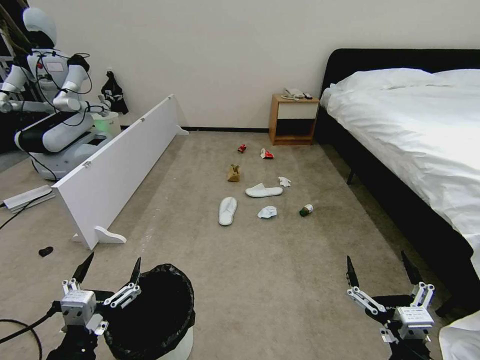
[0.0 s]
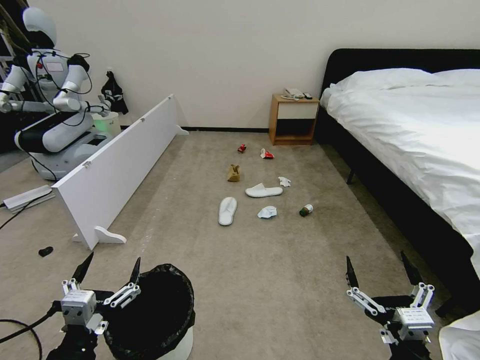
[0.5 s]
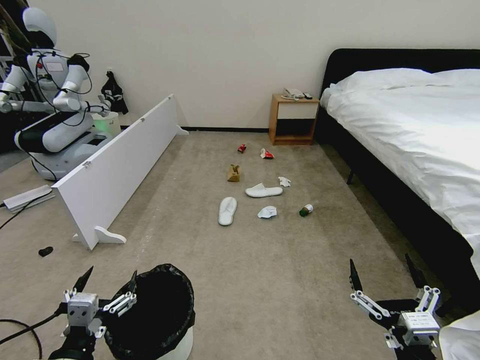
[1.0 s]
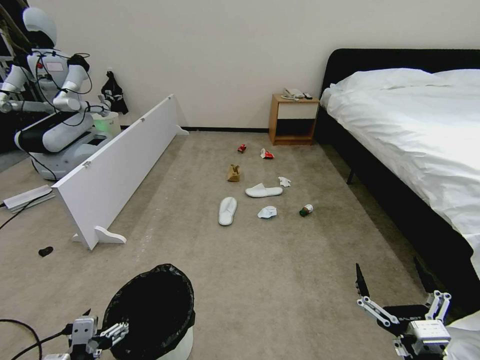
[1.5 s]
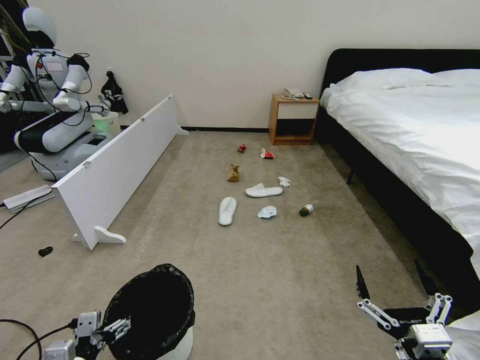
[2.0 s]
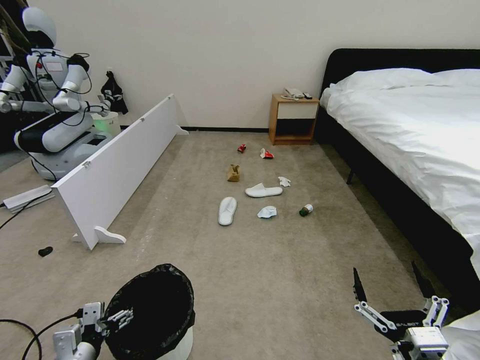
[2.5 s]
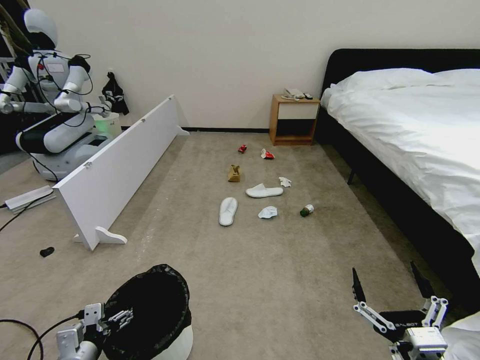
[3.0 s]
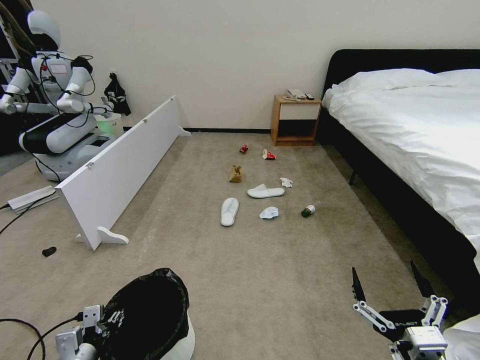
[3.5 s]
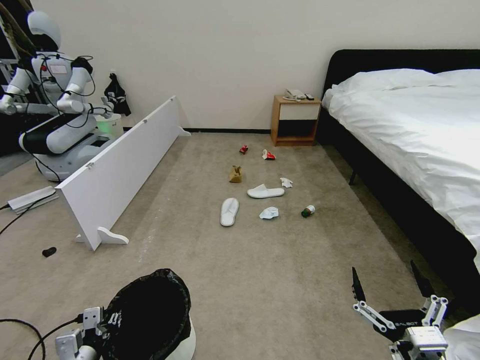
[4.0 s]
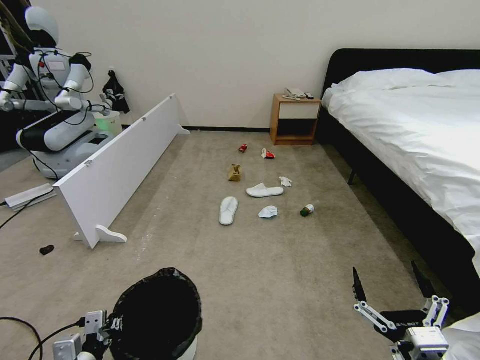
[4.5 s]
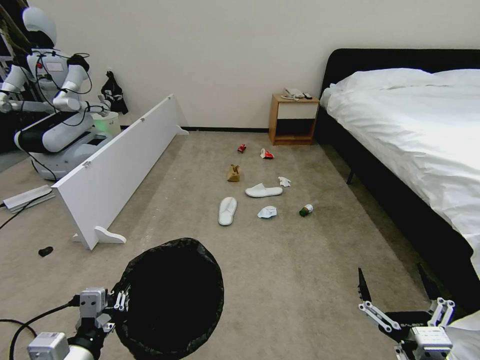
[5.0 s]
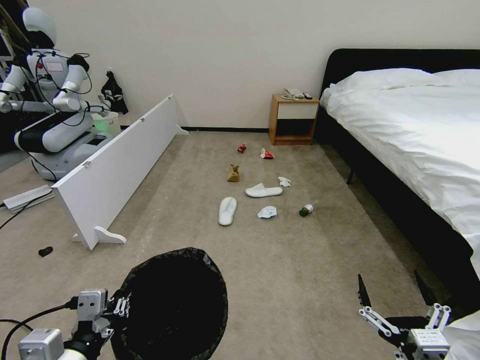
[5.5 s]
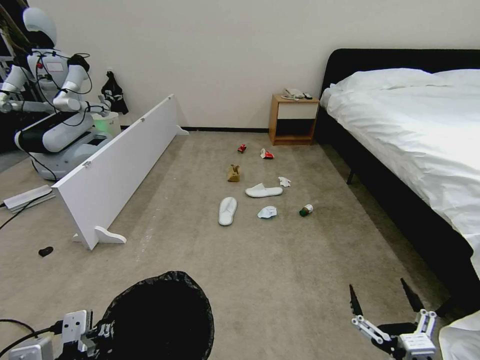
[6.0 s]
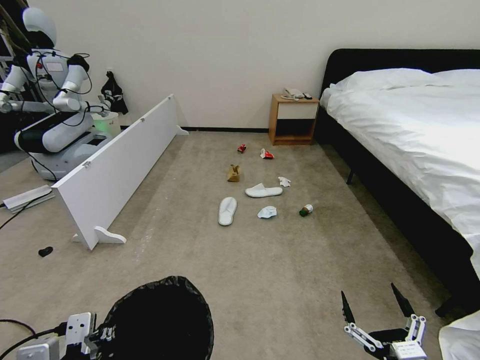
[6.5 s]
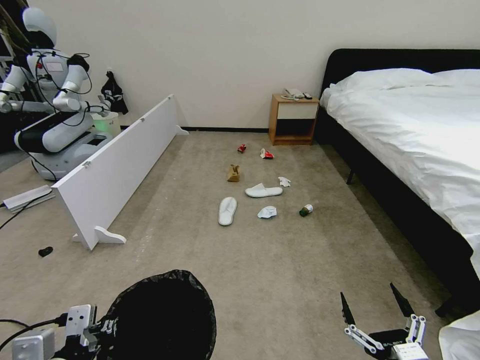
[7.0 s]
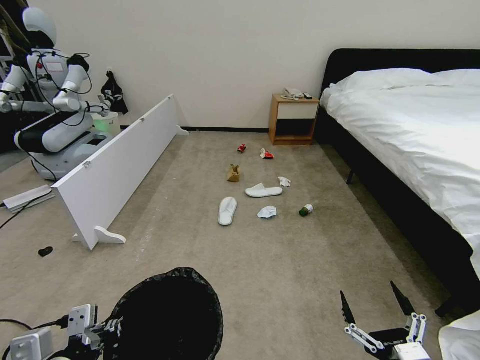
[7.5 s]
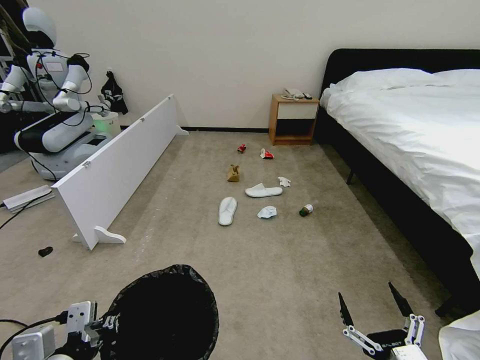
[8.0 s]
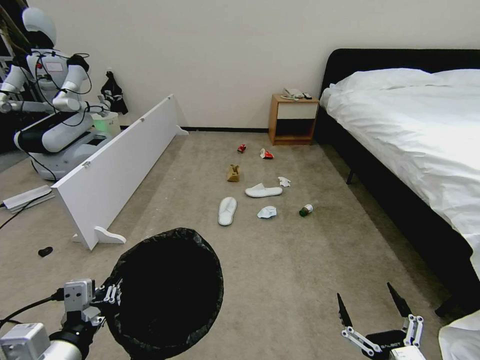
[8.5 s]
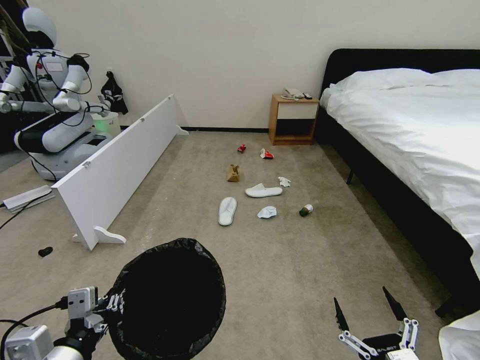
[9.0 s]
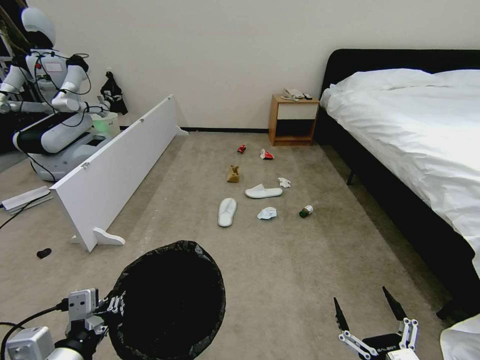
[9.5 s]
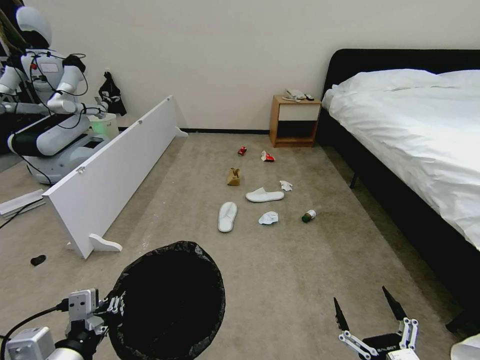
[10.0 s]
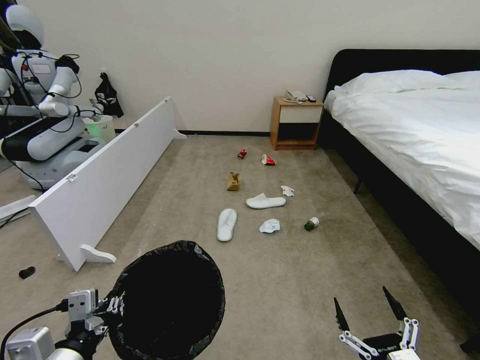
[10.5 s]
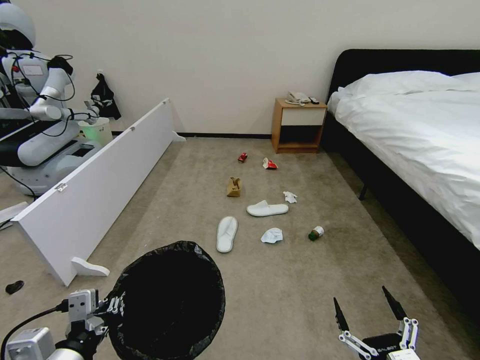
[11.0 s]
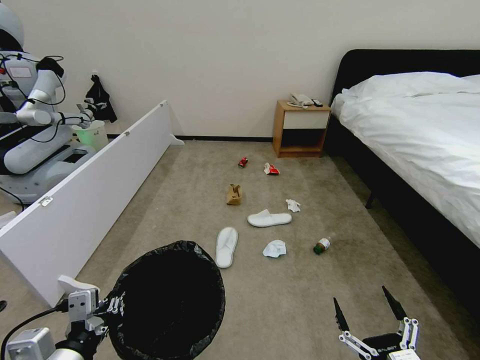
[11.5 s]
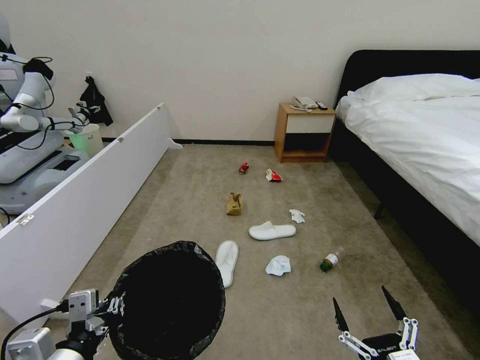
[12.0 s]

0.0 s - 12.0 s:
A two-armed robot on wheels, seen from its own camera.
Task of the whole recording: Pick up the trash bin, then pick up the garbage from the floor and place it into the trash bin.
2.0 s - 4.0 s: The left gripper ends up about 5 cm from where it was, and closes.
4.0 s - 6.0 s: The left gripper heads upward and backward, covering about 20 cm.
6.0 s - 8.0 s: The grippers make only small movements.
8.0 s - 10.0 s: There are only small adjustments of the grippers.

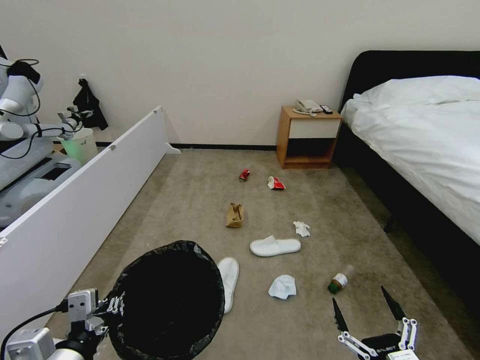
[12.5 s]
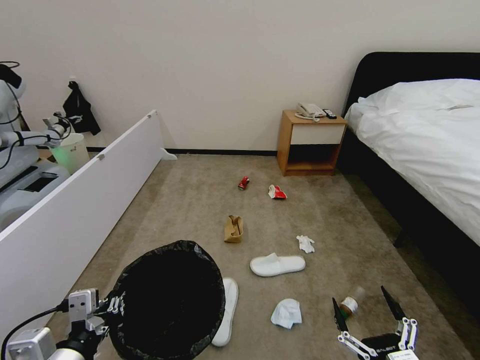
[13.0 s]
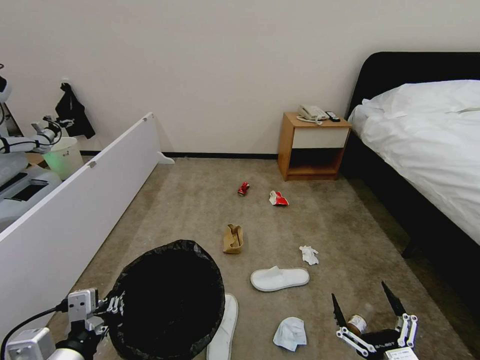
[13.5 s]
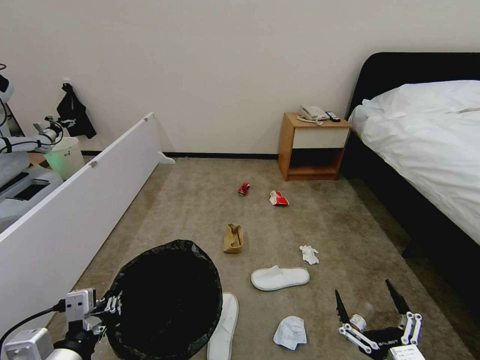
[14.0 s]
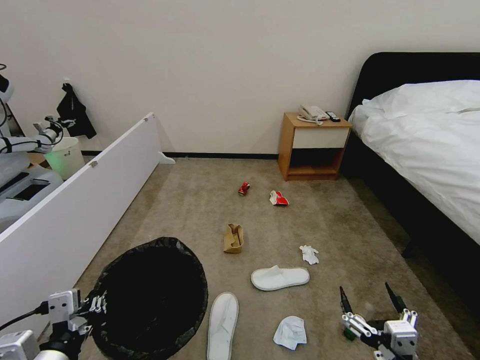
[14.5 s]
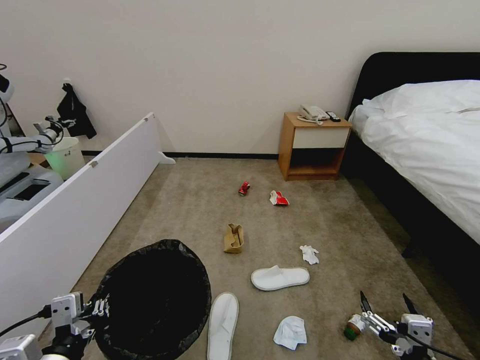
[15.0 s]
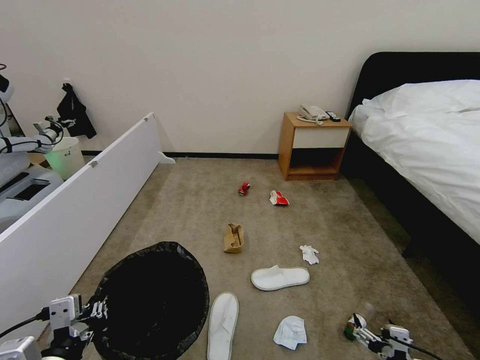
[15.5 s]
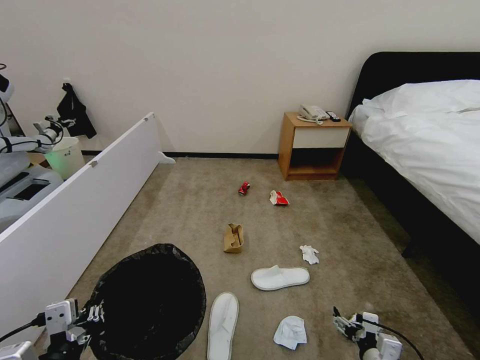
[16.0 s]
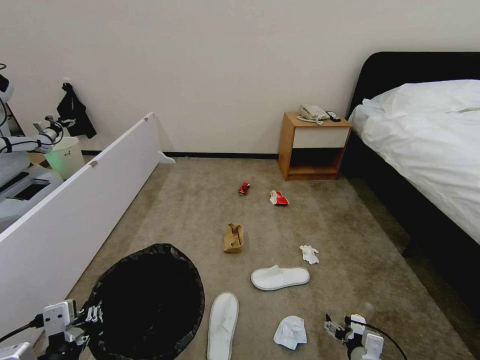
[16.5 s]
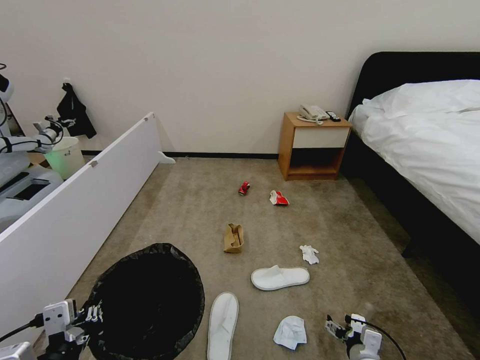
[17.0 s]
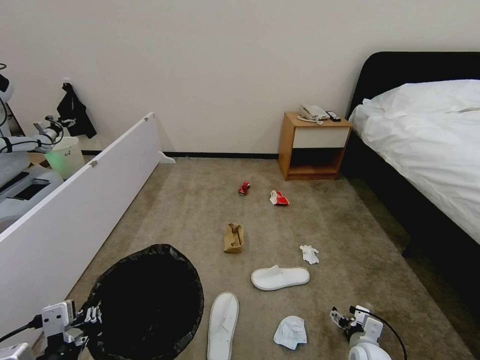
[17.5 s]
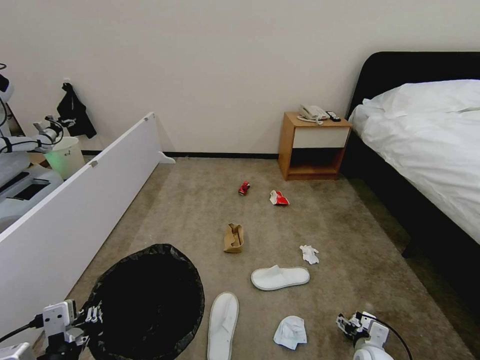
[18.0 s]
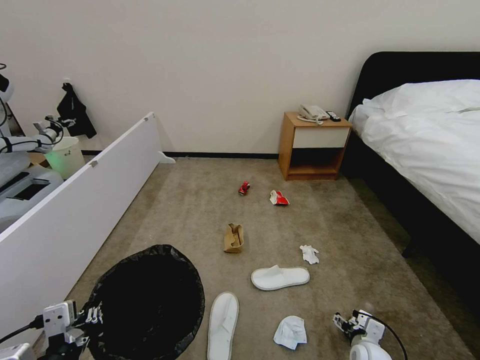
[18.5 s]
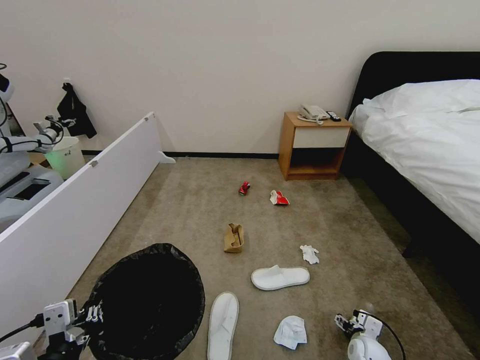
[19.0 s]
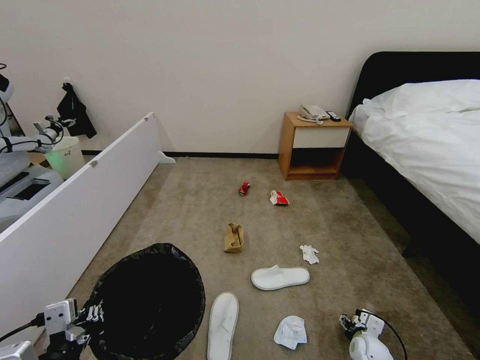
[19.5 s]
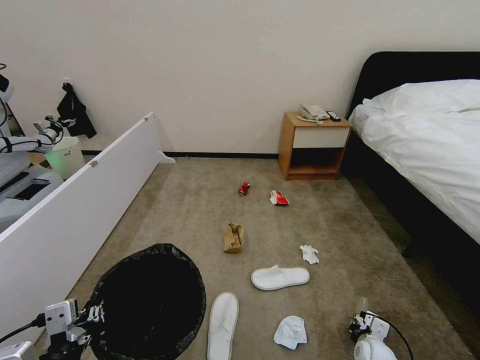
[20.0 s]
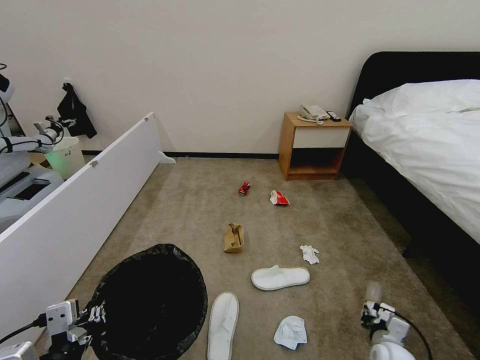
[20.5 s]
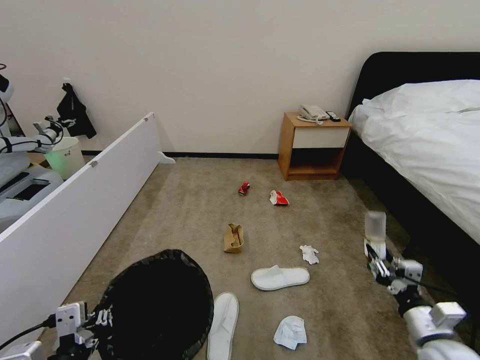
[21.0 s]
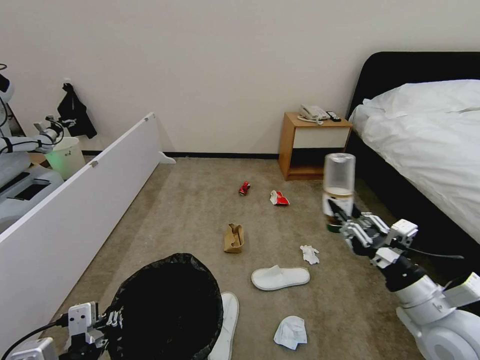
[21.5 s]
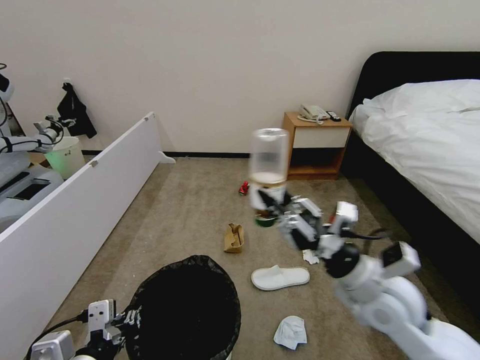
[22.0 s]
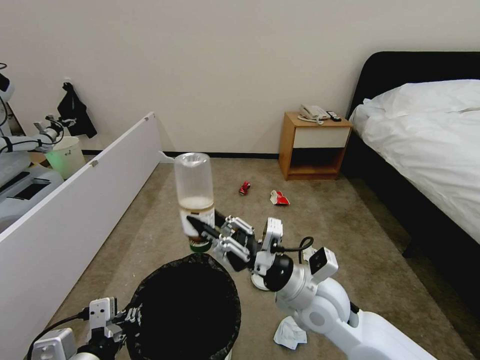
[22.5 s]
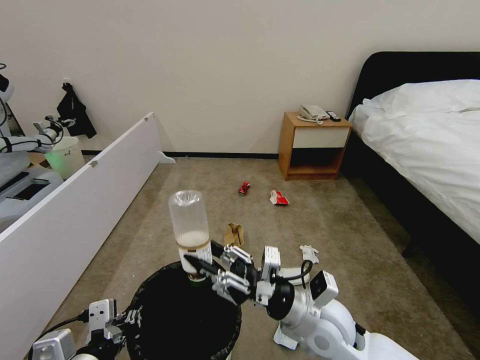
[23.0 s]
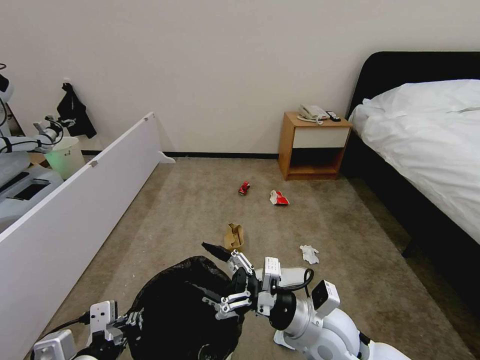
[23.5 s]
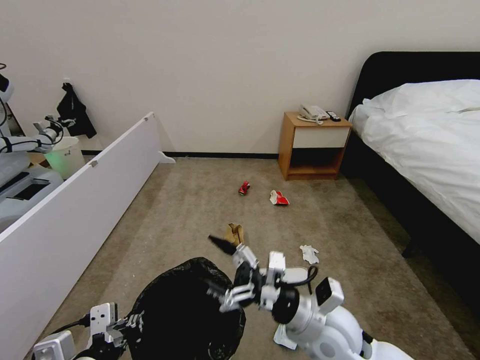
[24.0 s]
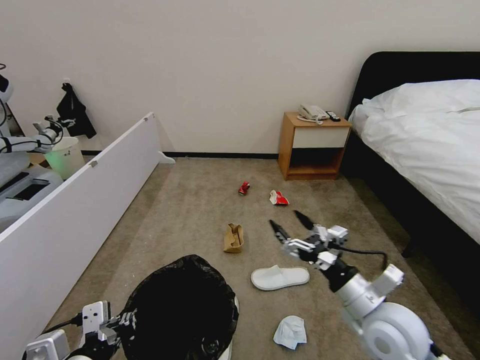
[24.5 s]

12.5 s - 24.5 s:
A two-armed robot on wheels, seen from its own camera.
Task of the whole recording: Pick up the trash bin, then pick up the garbage from the floor and place it into the trash bin.
14.5 s - 16.5 s: The right gripper goes approximately 25 cm downward and forward.
16.5 s - 18.5 s: The right gripper is displaced forward by some 5 cm.
18.5 s - 20.5 s: The right gripper closes.
20.5 s - 22.5 s: The right gripper goes roughly 35 cm upward and to the left.
22.5 s - 24.5 s: The right gripper goes some 10 cm to the right, and opens its fingers.

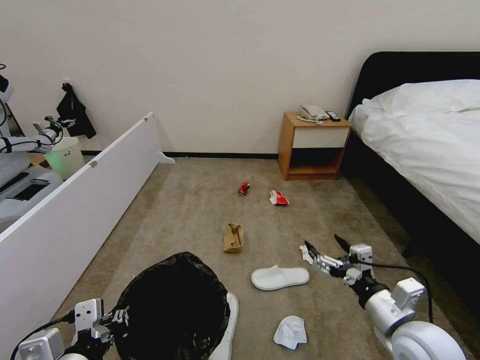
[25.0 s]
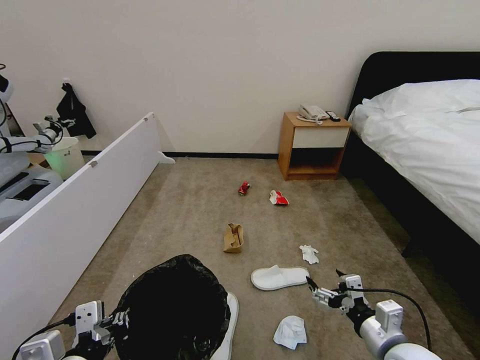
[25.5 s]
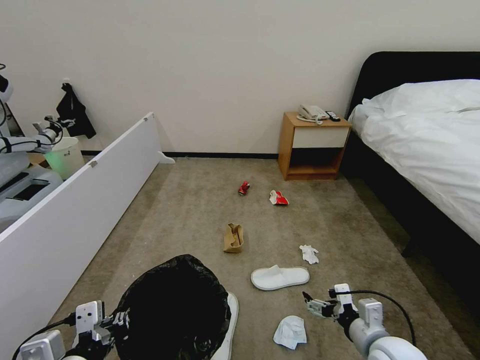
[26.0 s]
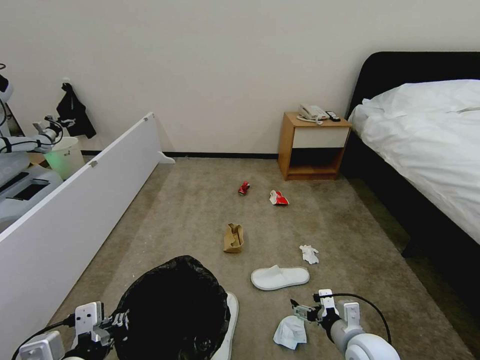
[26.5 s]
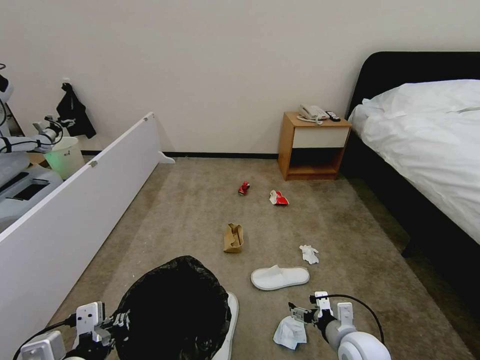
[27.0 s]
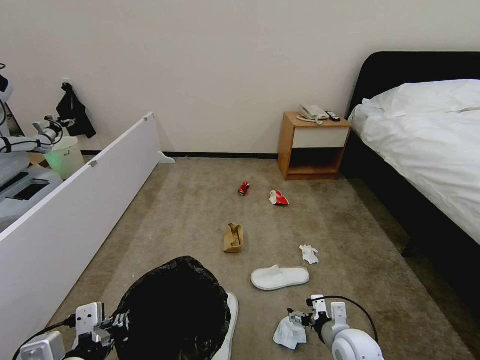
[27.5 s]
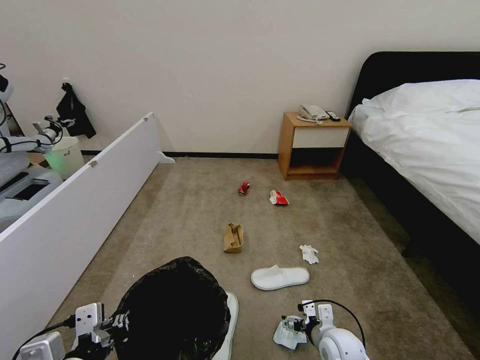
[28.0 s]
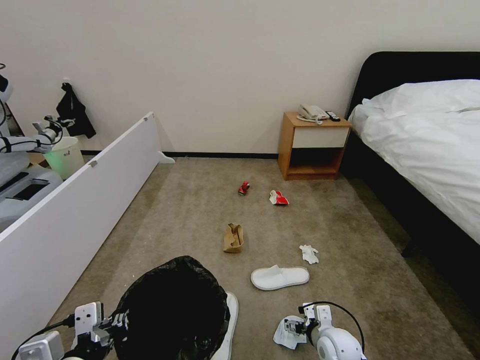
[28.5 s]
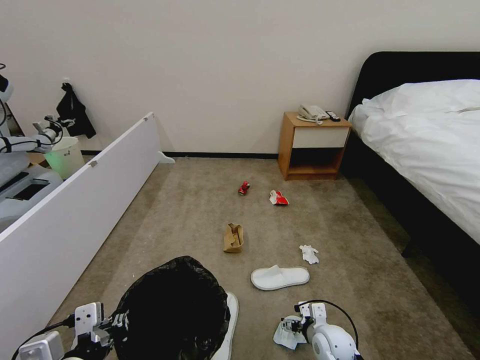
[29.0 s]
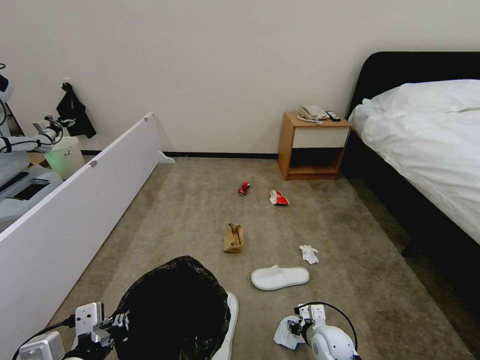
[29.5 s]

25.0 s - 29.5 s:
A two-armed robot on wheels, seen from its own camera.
Task of the whole recording: Pick up the trash bin, then pick up the garbage from the floor and place it into the trash bin.
25.0 s - 27.0 s: The right gripper moves downward, approximately 10 cm.
27.0 s - 29.5 s: The right gripper is displaced downward and forward by some 10 cm, and closes its fingers.
